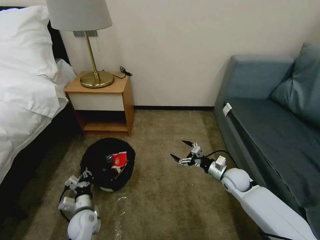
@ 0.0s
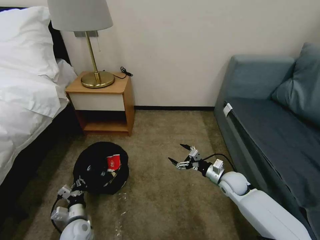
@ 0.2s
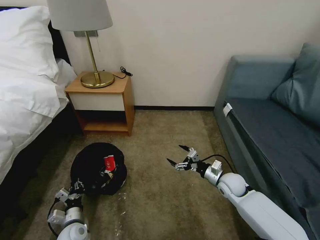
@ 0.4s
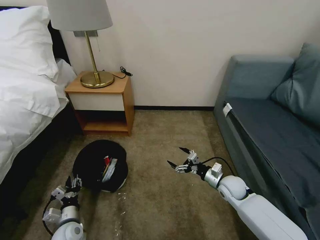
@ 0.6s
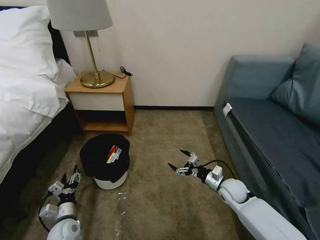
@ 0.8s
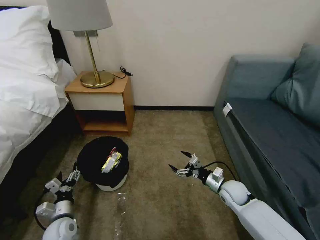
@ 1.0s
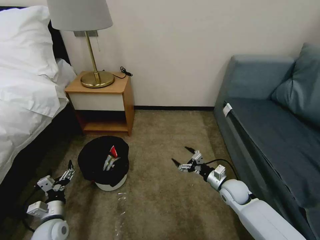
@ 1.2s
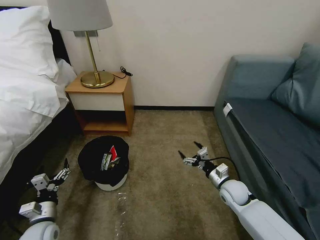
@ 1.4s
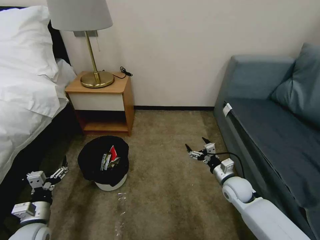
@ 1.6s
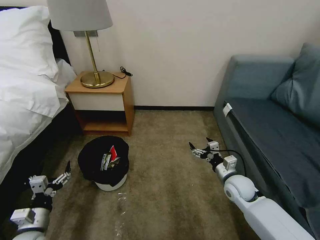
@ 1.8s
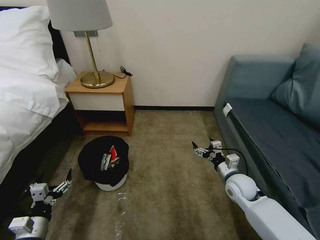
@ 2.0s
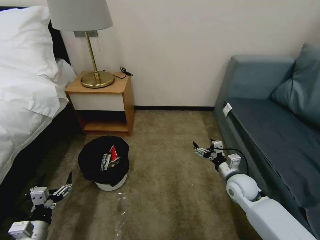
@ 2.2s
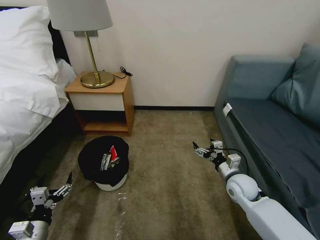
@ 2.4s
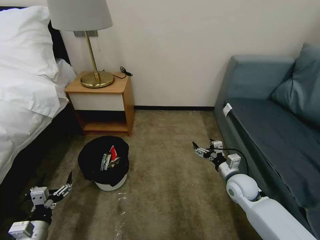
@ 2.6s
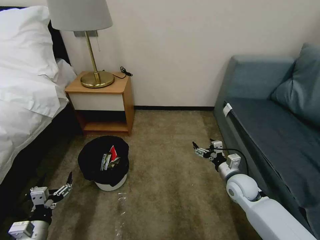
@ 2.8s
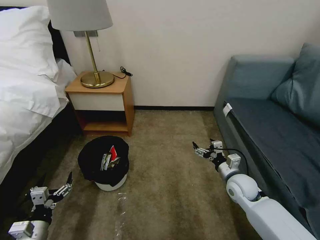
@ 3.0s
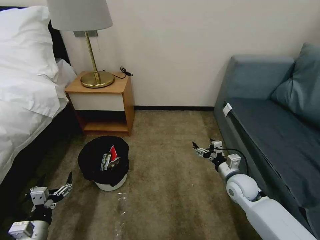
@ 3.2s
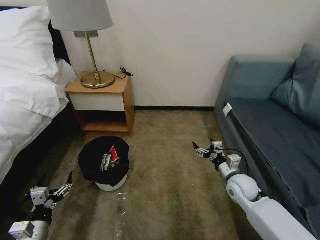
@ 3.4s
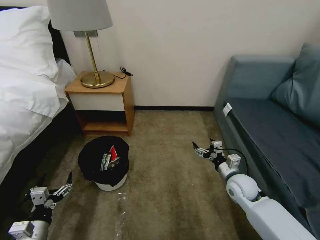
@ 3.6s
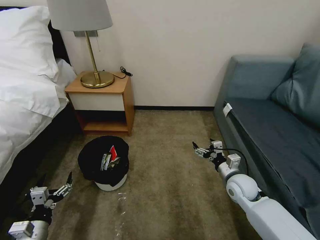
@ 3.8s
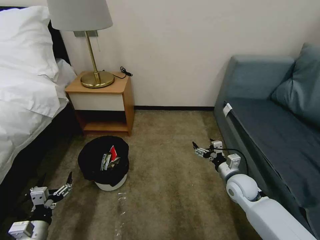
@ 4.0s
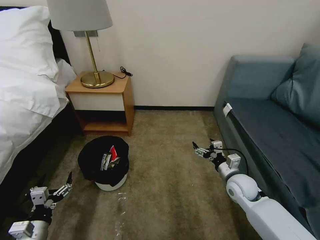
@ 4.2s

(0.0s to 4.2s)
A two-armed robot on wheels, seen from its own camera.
Task of the whole recording: Pick up the trash bin, then pick up the garbage on the floor and place it into the trash bin.
0.0s - 1.4s: The left gripper travels to the left and upward by about 10 cm, and opens up.
1.4s - 2.8s: The right gripper goes about 5 cm upward, while the left gripper heads backward, covering some 5 cm.
2.8s - 4.2s: Both grippers stay about where they are.

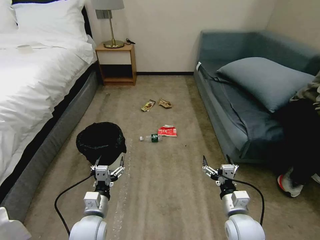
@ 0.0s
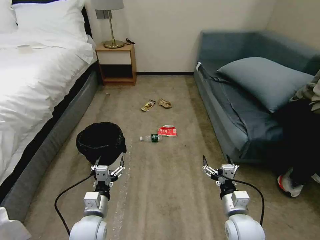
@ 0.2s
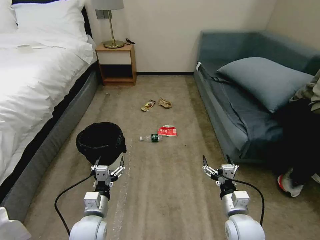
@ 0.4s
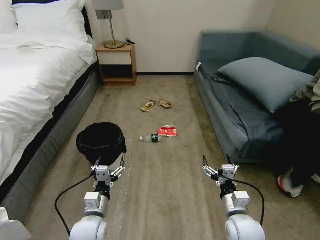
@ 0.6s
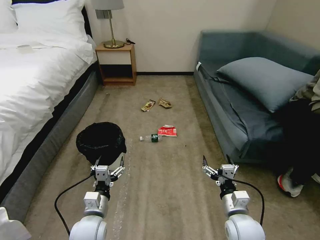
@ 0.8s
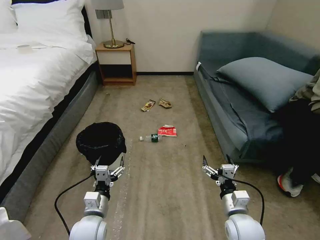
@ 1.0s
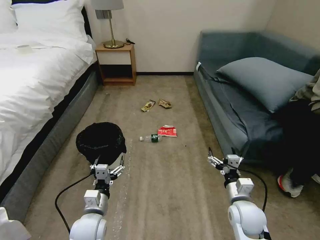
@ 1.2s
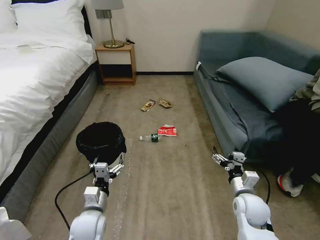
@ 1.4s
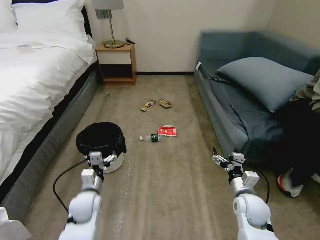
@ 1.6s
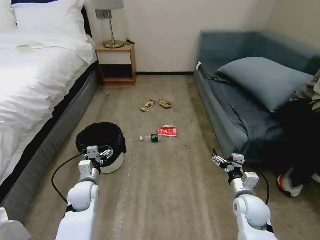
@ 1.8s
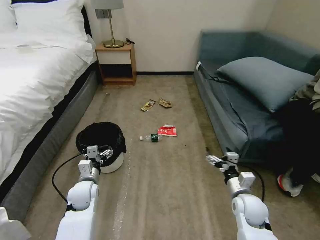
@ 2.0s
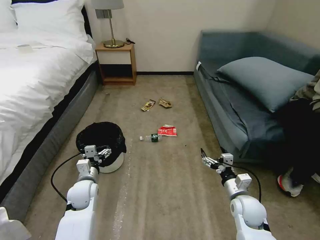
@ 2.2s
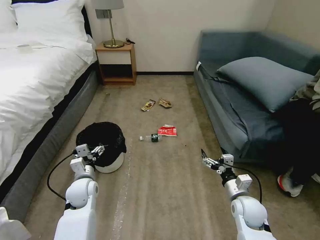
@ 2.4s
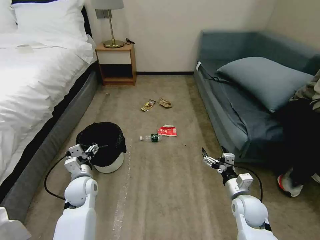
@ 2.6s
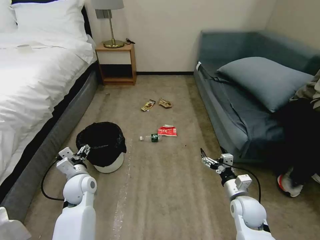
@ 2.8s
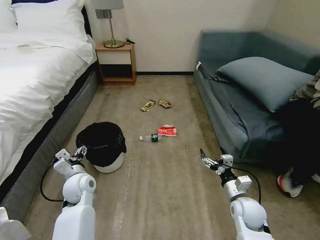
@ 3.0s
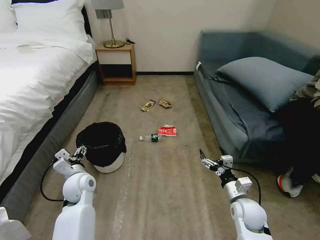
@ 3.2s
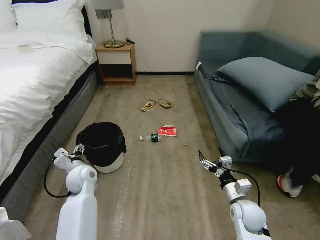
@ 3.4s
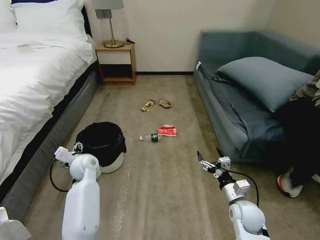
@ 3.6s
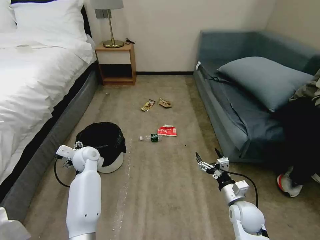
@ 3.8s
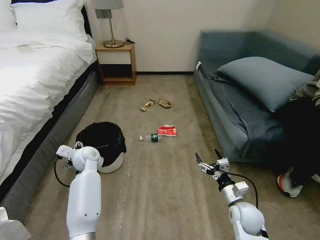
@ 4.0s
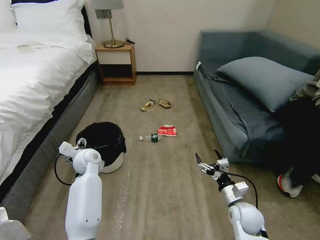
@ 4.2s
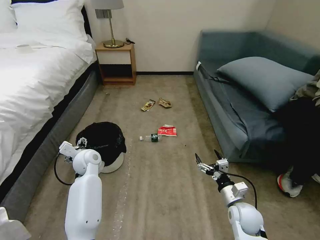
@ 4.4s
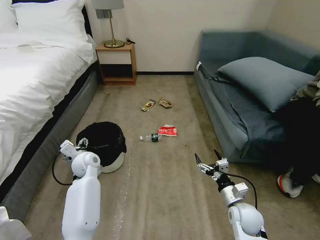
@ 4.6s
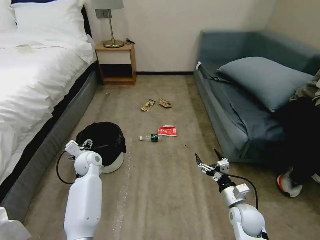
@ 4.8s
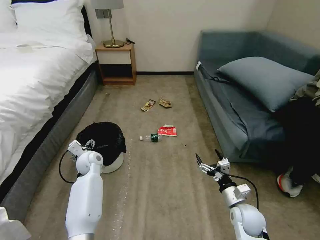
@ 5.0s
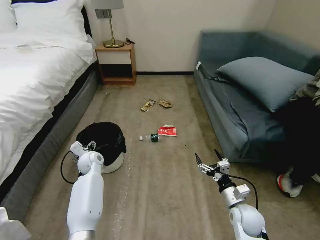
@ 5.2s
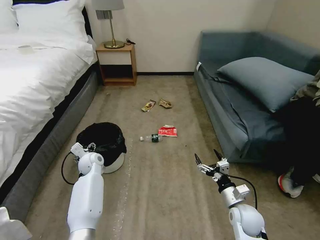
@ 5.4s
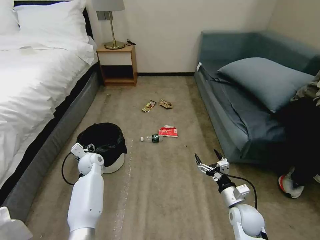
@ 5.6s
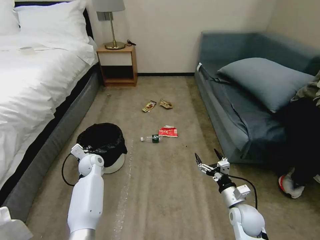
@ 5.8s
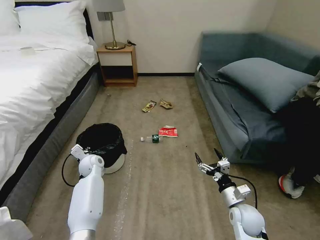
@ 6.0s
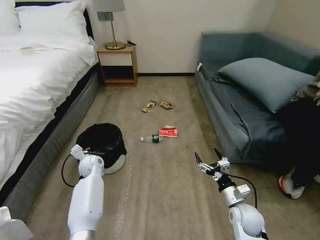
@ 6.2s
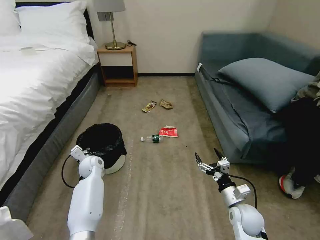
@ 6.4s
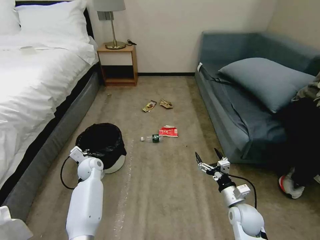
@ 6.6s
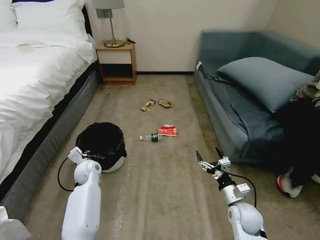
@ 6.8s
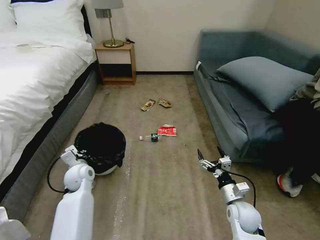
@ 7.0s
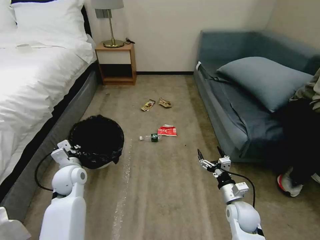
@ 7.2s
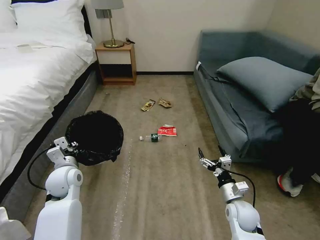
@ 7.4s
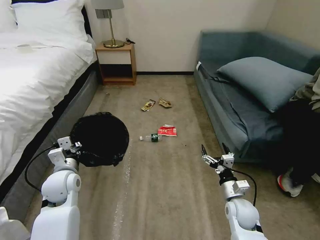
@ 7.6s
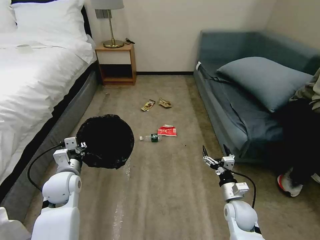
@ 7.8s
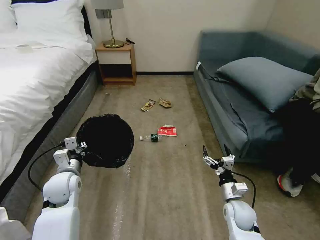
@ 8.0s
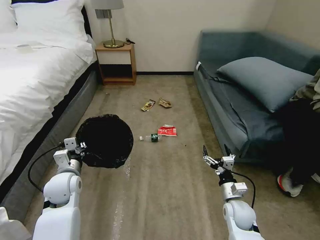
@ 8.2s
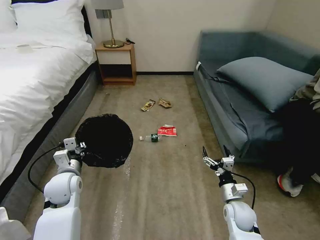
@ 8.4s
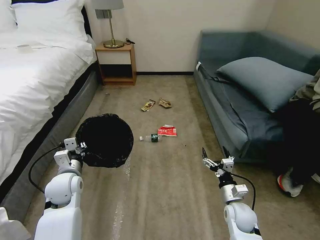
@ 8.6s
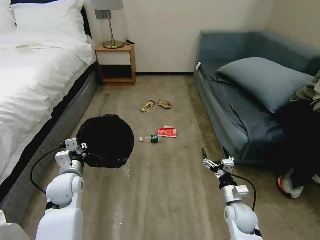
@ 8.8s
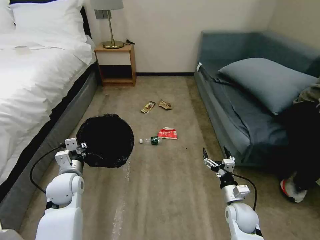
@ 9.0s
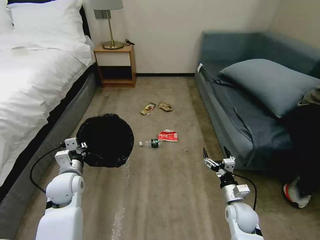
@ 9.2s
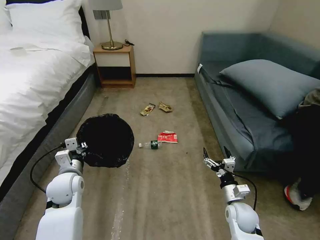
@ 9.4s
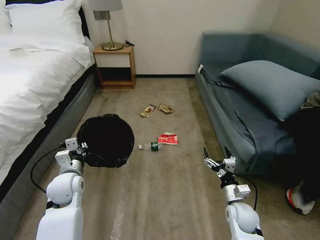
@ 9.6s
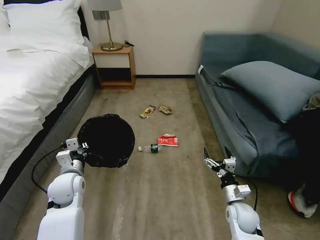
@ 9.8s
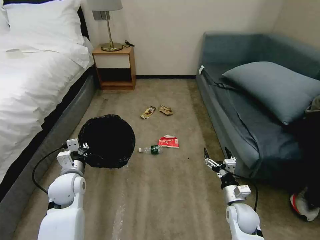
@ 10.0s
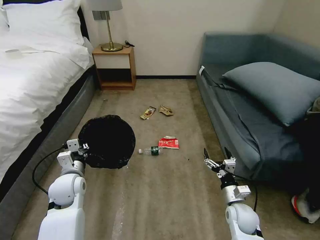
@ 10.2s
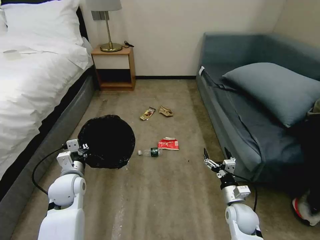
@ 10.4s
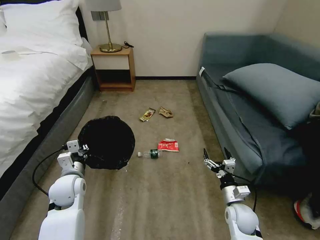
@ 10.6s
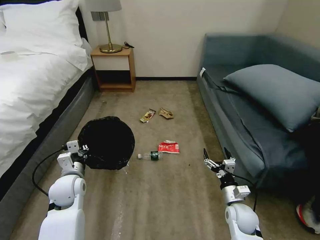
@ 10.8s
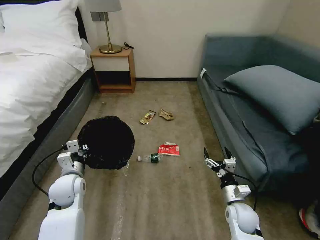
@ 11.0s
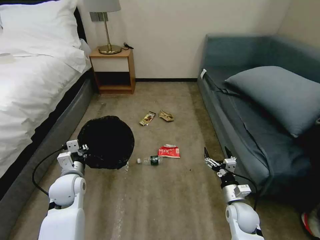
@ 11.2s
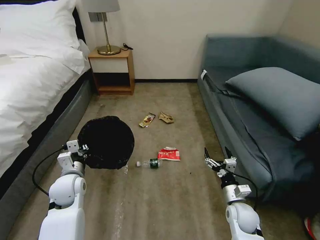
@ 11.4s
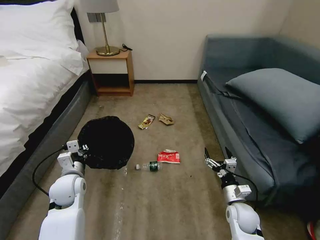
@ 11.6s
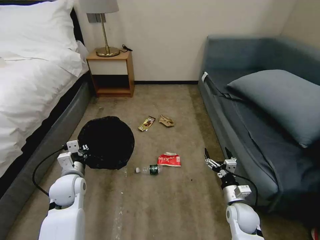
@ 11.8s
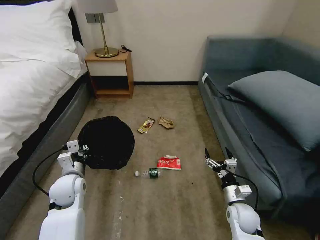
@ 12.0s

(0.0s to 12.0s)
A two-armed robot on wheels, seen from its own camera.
Task of the whole recording: Pick up the trash bin, then pick up the garbage on the floor and place it into the trash bin.
1.6s - 3.0s: The left gripper is displaced forward by roughly 10 cm.
3.0s - 4.4s: The left gripper is displaced forward by roughly 10 cm.
4.4s - 6.0s: The left gripper heads downward, covering some 10 cm, and closes its fingers.
6.0s - 7.6s: The left gripper moves backward and upward, roughly 15 cm.
7.6s - 9.0s: The grippers make only small movements.
9.0s - 10.4s: Both grippers stay put.

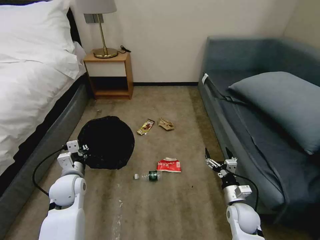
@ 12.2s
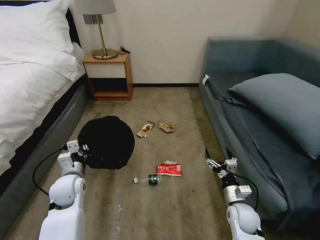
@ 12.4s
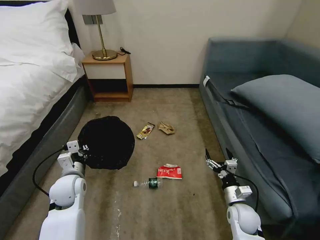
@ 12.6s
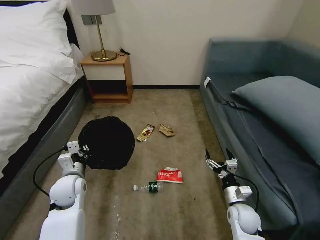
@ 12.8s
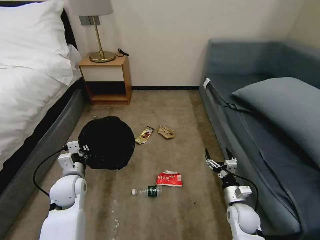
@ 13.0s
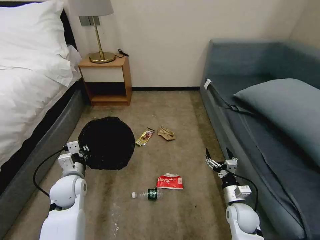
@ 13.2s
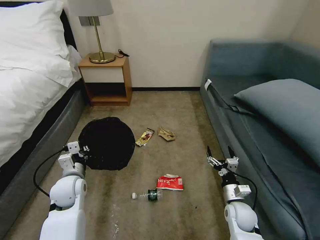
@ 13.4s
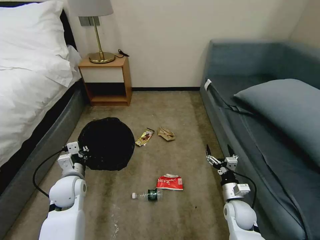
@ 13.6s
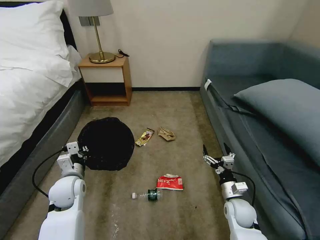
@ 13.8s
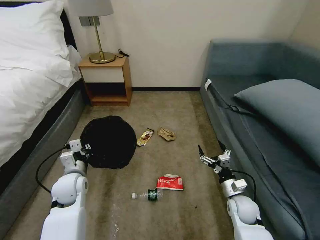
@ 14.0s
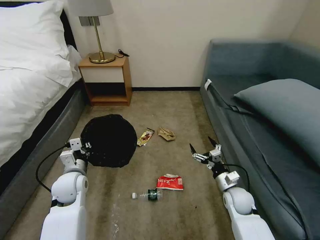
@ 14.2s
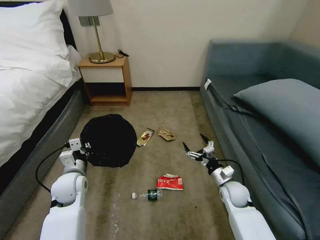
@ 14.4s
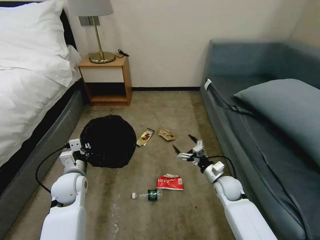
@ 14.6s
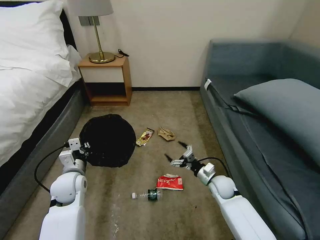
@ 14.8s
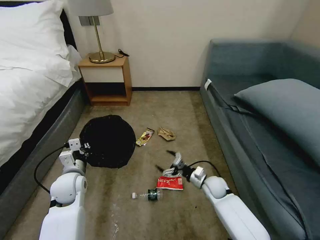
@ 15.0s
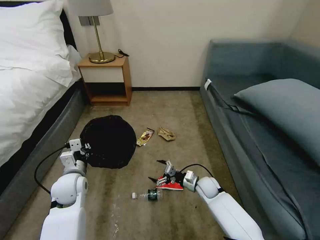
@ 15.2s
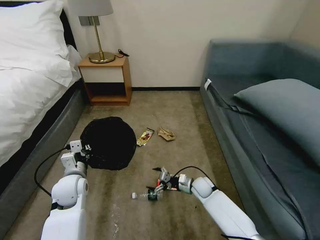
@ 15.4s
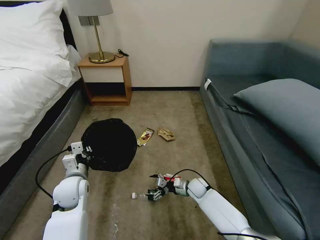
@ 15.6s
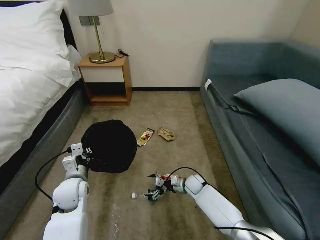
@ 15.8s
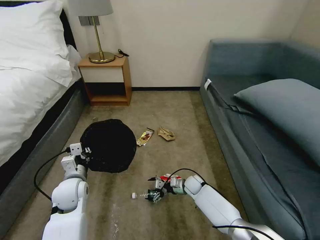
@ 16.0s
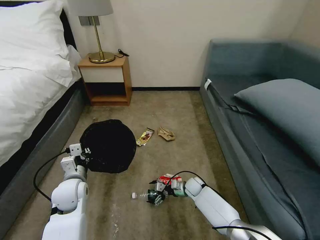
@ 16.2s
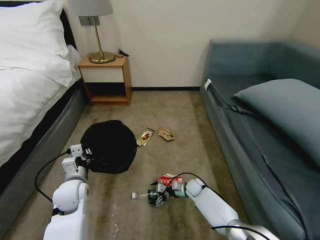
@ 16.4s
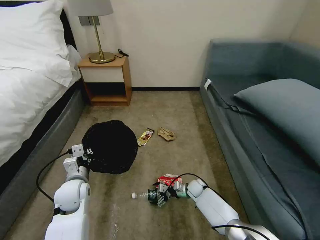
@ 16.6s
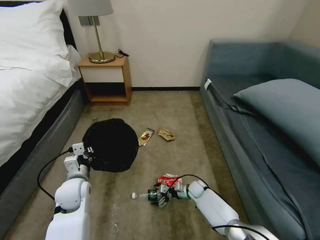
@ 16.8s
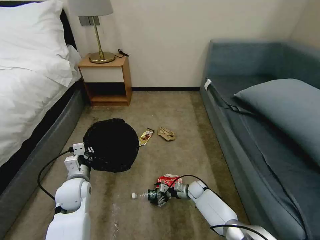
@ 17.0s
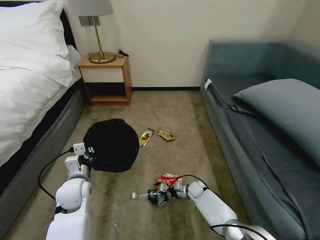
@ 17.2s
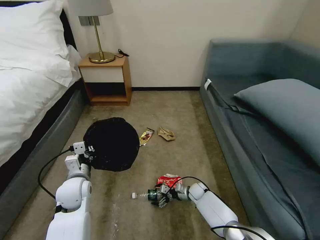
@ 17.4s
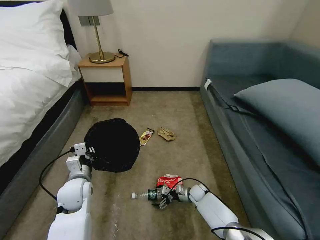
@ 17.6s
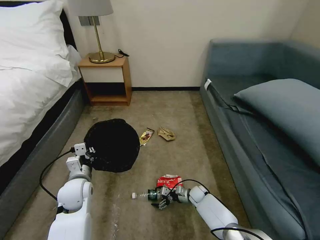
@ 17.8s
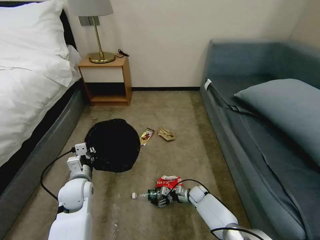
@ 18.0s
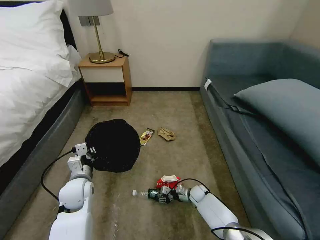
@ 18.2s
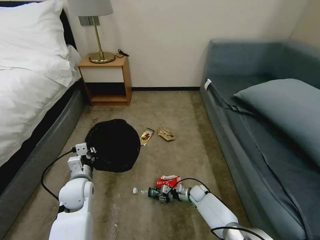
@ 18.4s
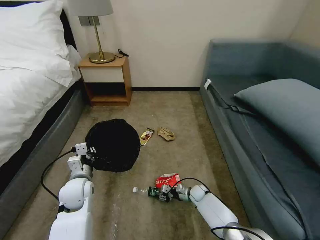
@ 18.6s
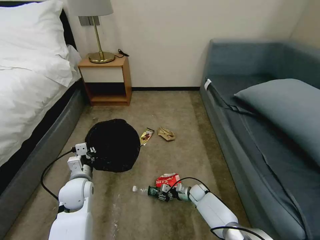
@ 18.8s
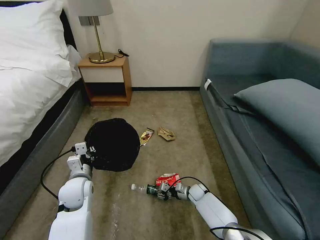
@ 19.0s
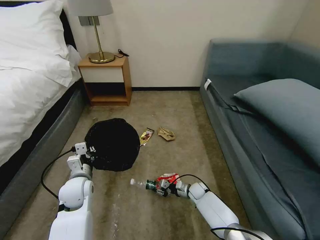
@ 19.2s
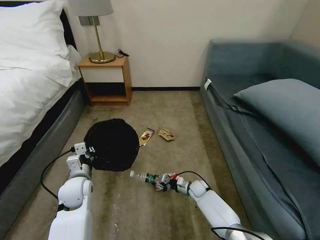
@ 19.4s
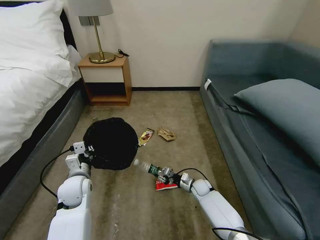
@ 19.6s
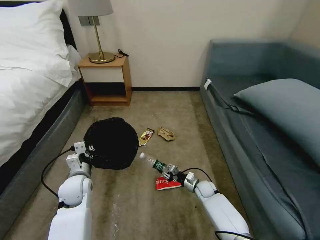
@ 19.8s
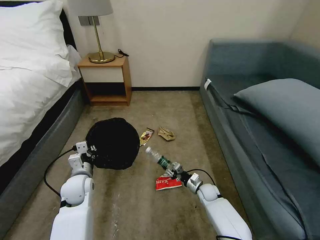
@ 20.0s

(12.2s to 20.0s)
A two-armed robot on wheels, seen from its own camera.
Task of the whole recording: Pick up the trash bin, then pick up the garbage on the floor and place it into the trash bin.
12.2s - 13.8s: The grippers stay close to where they were, moving slightly.
13.8s - 15.4s: The right gripper moves forward, to the left and downward, approximately 15 cm.
15.4s - 16.8s: The right gripper travels downward by approximately 10 cm.
16.8s - 18.4s: The right gripper closes its fingers.
18.4s - 20.0s: The right gripper ends up approximately 5 cm from where it was.
